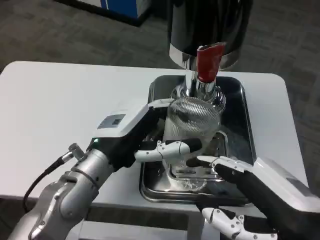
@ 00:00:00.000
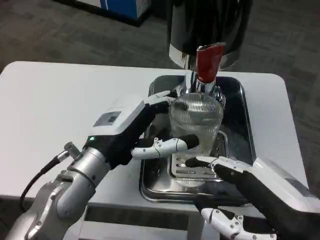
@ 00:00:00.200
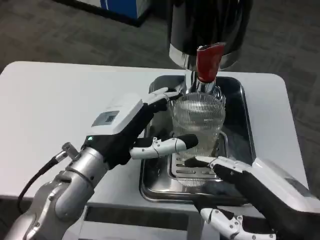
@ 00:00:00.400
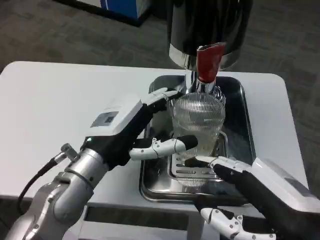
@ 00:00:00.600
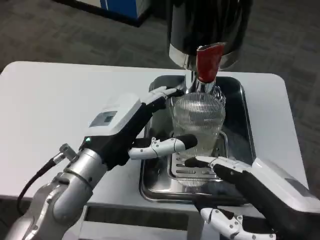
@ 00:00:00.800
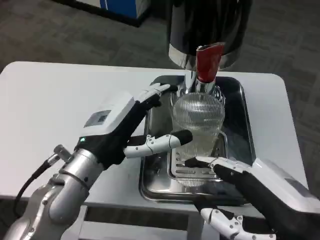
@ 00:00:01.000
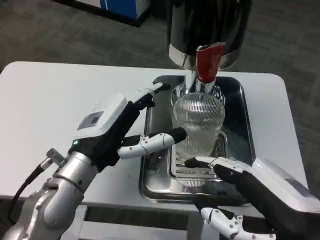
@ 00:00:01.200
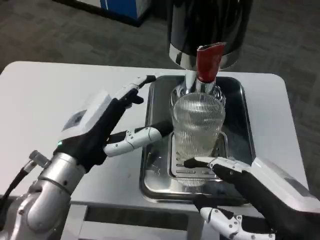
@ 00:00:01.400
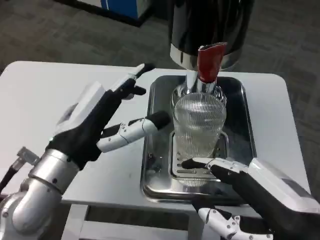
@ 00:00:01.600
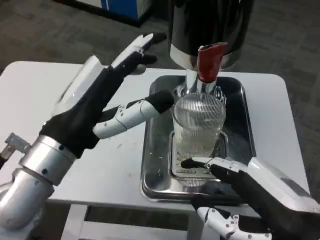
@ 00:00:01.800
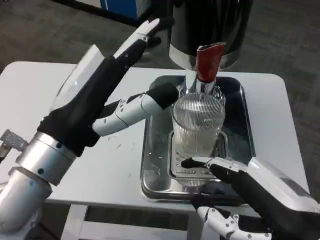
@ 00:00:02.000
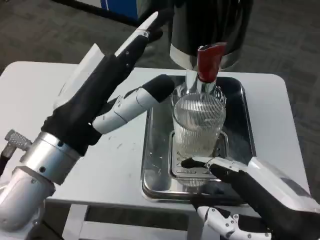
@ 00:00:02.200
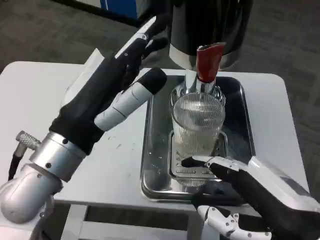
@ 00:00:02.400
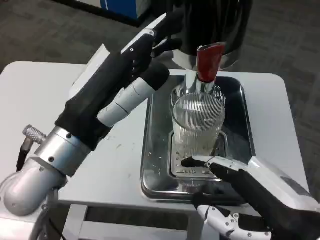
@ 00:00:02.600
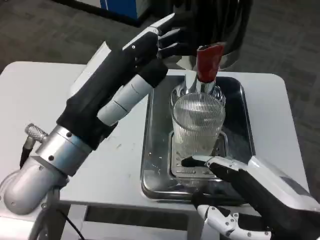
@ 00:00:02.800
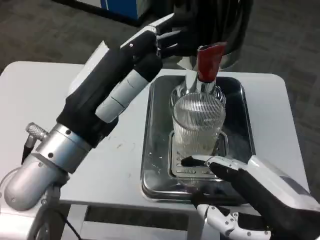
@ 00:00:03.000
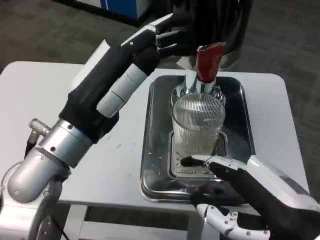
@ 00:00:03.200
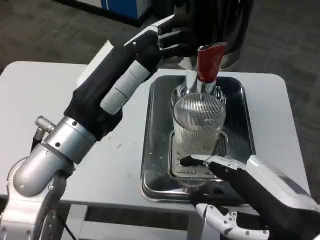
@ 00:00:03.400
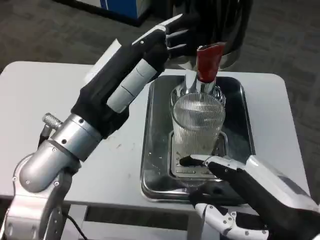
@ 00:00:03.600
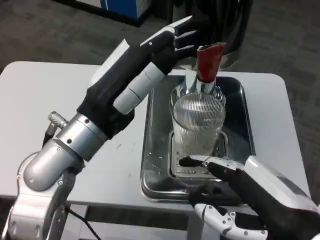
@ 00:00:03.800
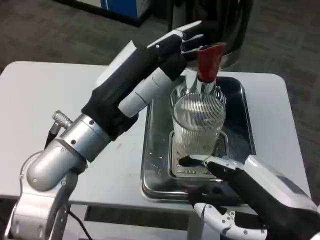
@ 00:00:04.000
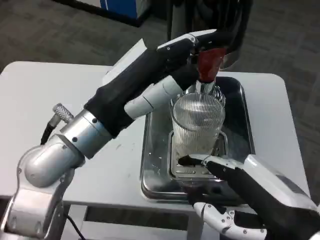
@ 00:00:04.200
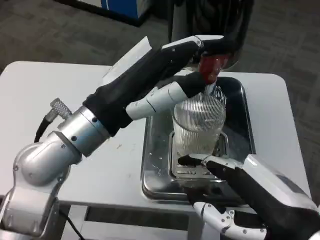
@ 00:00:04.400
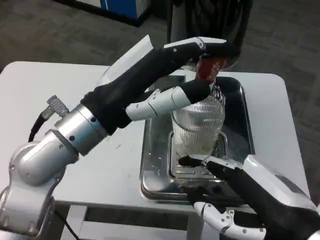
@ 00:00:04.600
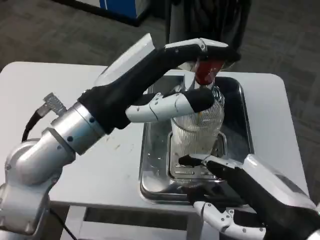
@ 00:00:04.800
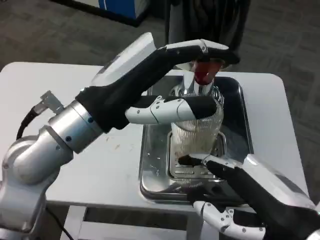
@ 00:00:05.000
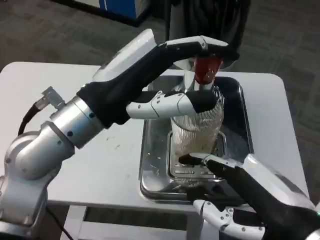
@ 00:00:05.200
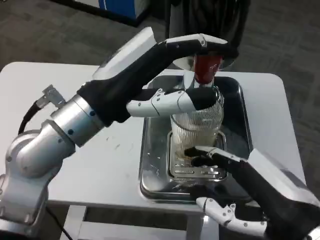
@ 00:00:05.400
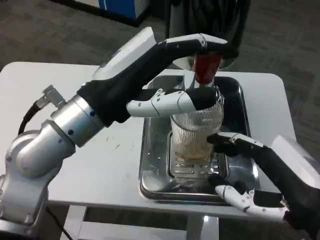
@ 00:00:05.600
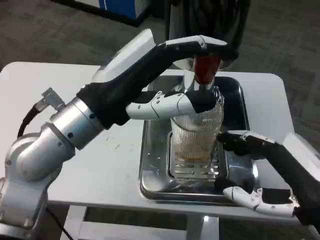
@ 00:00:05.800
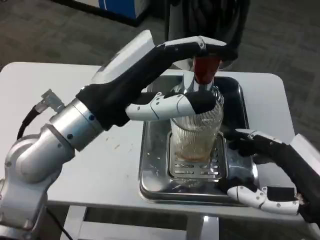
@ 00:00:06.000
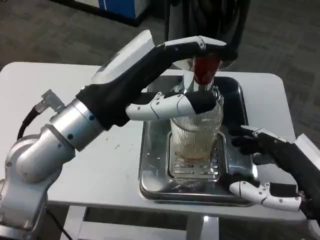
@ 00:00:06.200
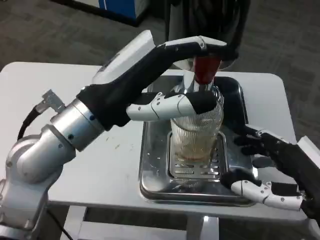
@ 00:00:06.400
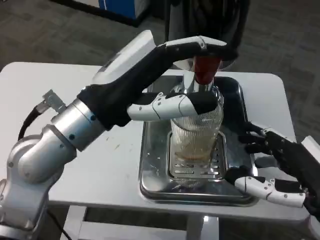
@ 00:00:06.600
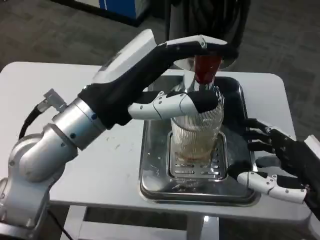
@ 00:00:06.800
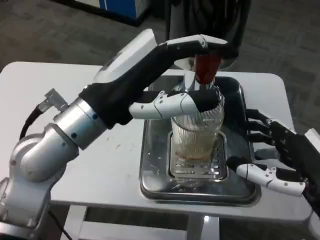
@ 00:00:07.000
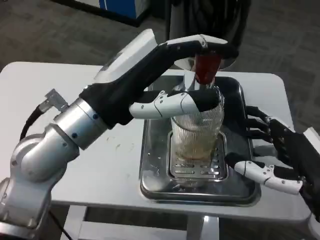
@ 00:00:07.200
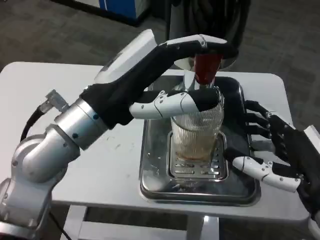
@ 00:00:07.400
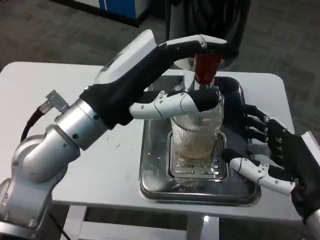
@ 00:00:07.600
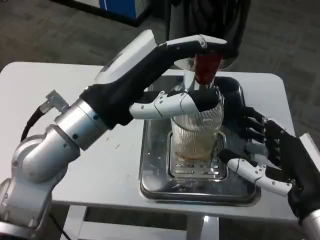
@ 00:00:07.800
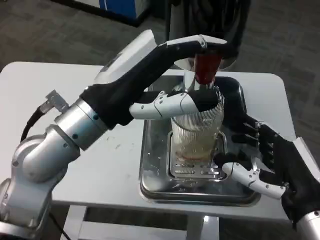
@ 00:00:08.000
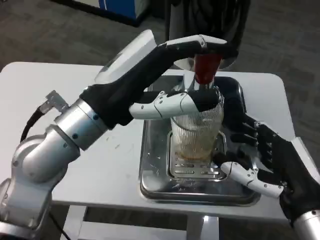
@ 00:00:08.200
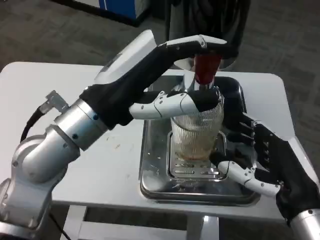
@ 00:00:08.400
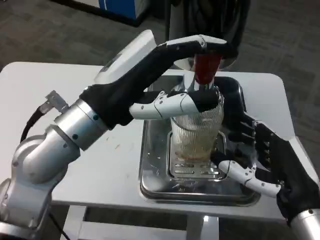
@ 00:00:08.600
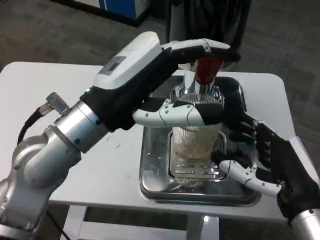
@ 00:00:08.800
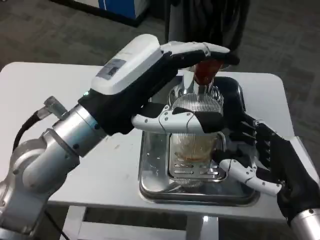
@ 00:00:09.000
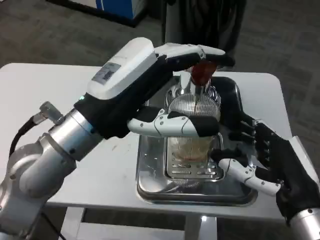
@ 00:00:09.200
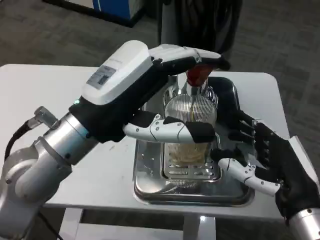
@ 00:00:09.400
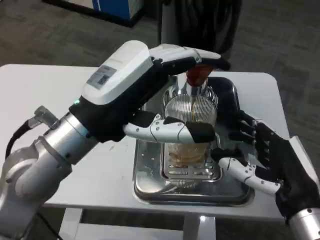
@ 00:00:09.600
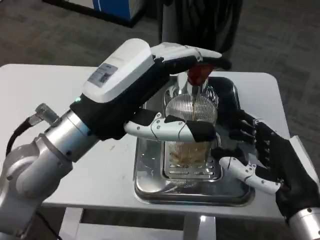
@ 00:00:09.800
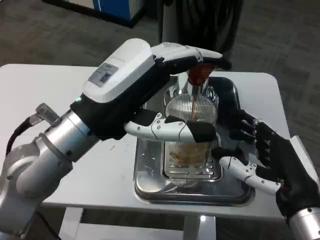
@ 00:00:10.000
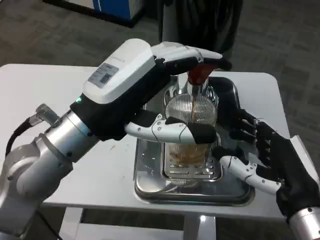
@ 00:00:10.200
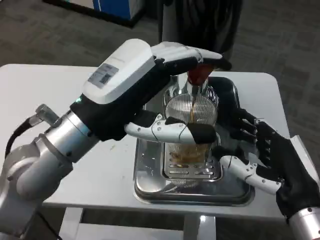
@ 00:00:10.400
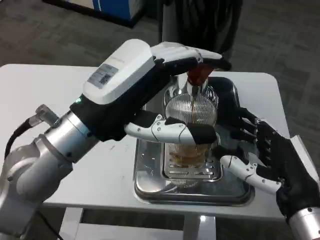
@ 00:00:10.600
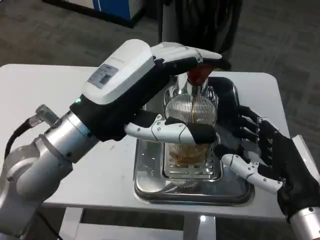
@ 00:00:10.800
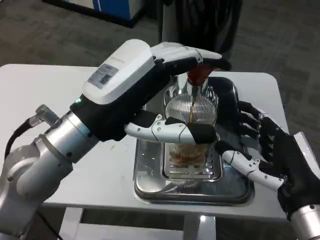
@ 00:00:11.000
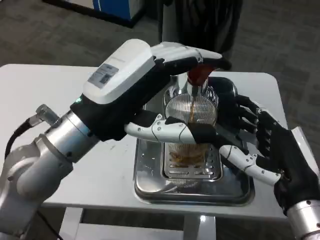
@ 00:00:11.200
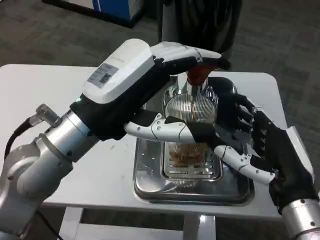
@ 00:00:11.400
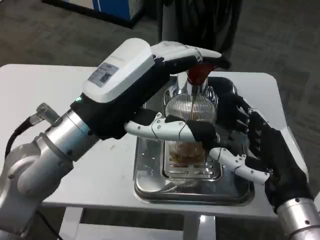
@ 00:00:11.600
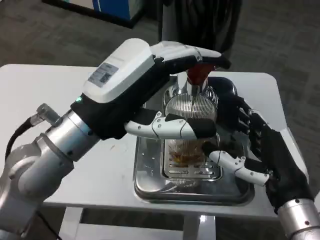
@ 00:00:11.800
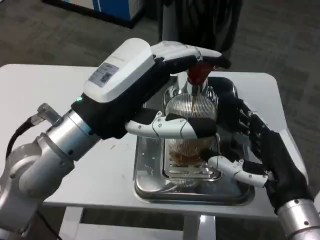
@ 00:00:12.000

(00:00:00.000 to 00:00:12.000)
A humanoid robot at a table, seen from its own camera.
Task of the whole recording: Grasp the cup under the faucet to collect the drink, then remove the cup.
00:00:00.000 - 00:00:01.600: The left hand moves approximately 5 cm.
00:00:06.000 - 00:00:07.600: The right hand shifts by about 5 cm.
00:00:10.400 - 00:00:12.000: There are only small adjustments of the hands.

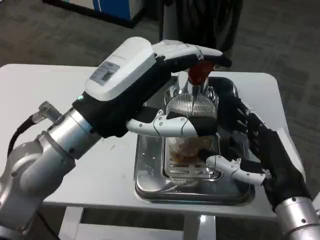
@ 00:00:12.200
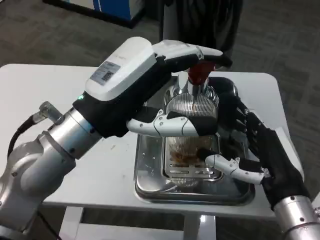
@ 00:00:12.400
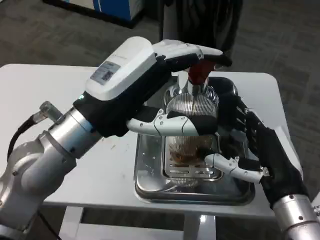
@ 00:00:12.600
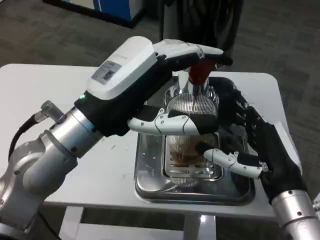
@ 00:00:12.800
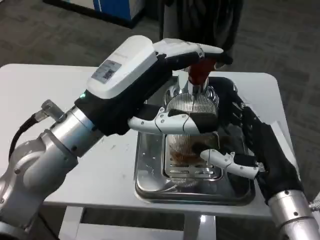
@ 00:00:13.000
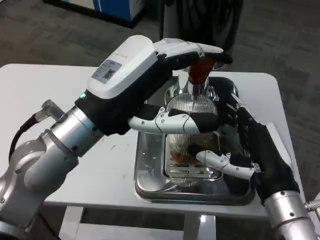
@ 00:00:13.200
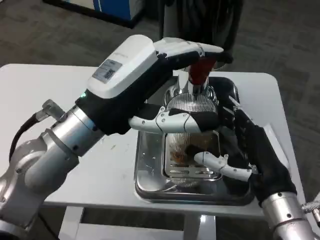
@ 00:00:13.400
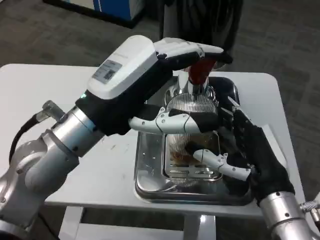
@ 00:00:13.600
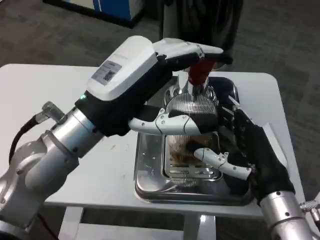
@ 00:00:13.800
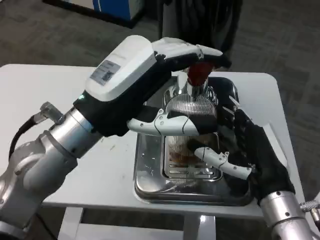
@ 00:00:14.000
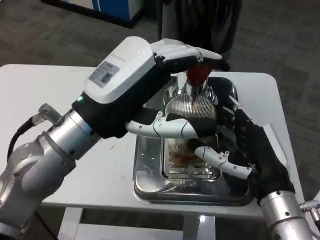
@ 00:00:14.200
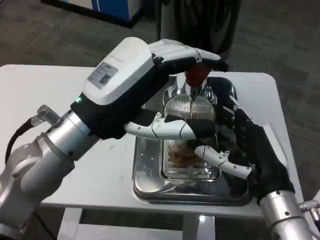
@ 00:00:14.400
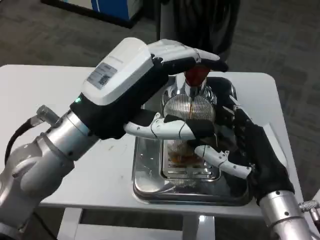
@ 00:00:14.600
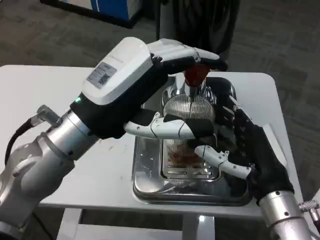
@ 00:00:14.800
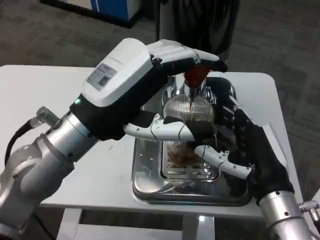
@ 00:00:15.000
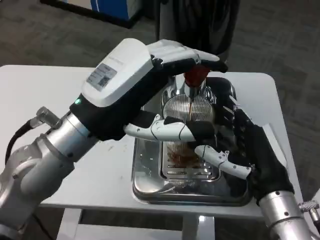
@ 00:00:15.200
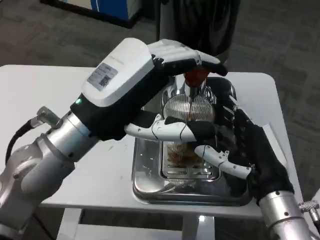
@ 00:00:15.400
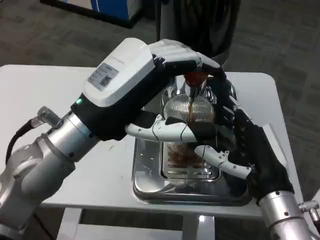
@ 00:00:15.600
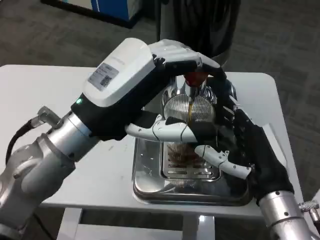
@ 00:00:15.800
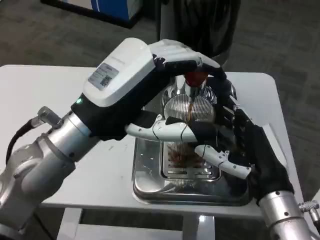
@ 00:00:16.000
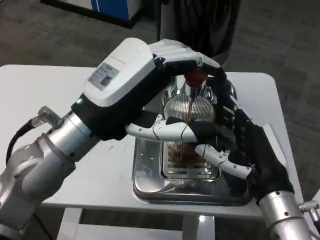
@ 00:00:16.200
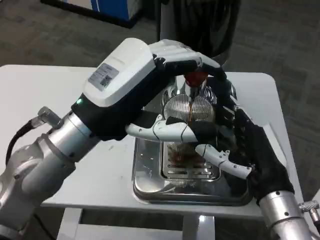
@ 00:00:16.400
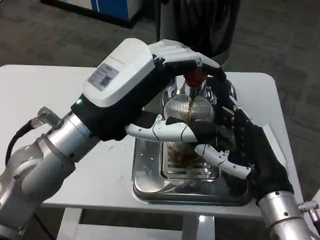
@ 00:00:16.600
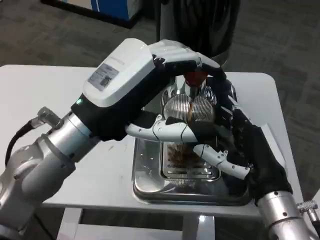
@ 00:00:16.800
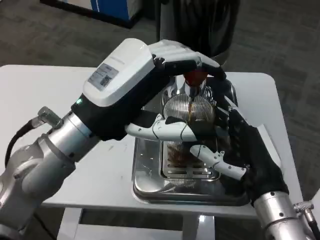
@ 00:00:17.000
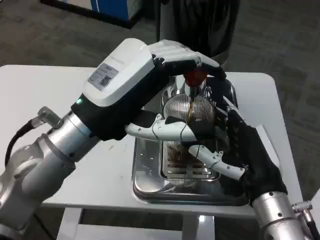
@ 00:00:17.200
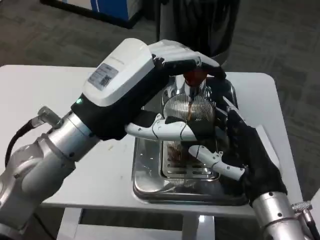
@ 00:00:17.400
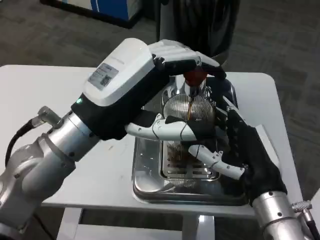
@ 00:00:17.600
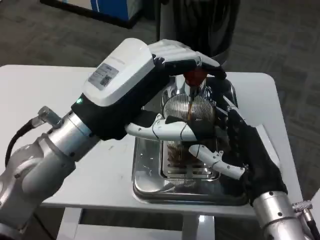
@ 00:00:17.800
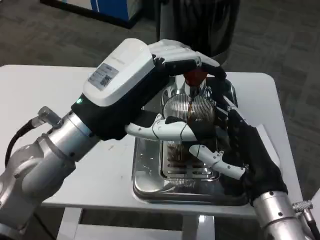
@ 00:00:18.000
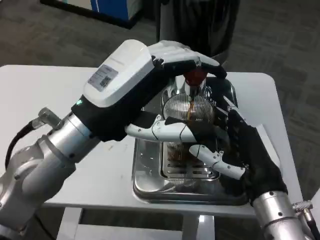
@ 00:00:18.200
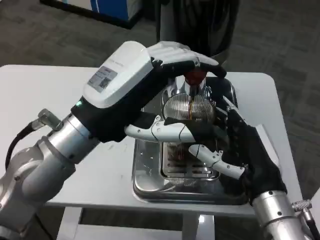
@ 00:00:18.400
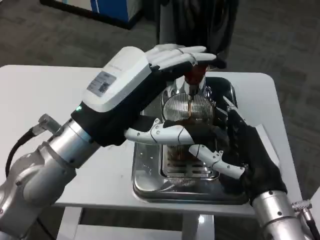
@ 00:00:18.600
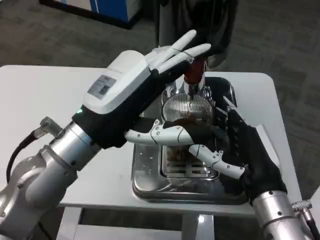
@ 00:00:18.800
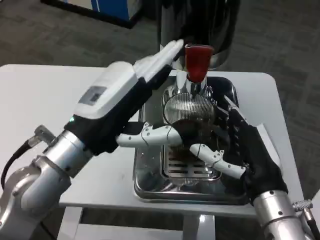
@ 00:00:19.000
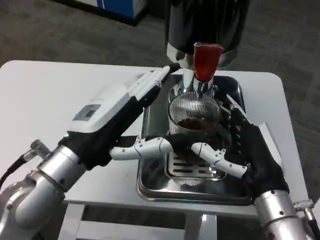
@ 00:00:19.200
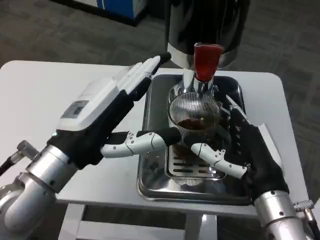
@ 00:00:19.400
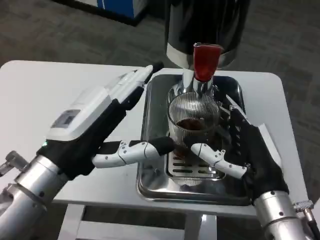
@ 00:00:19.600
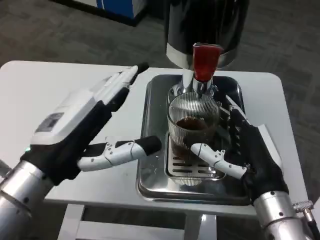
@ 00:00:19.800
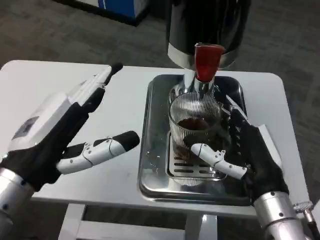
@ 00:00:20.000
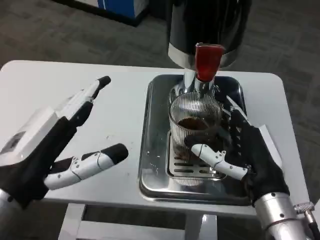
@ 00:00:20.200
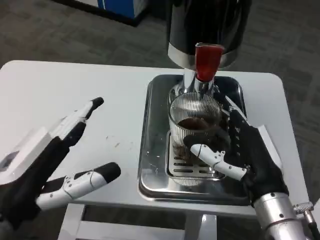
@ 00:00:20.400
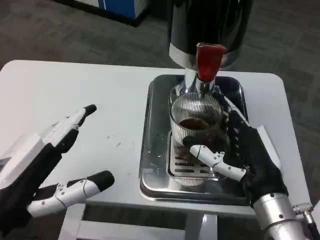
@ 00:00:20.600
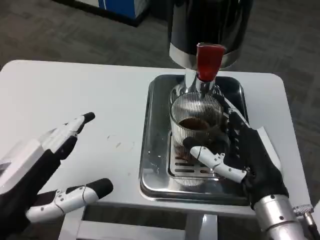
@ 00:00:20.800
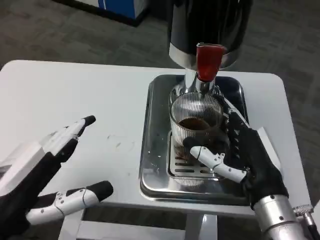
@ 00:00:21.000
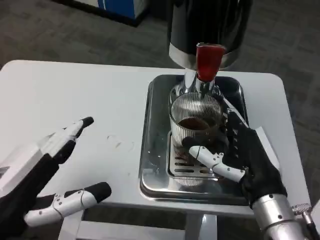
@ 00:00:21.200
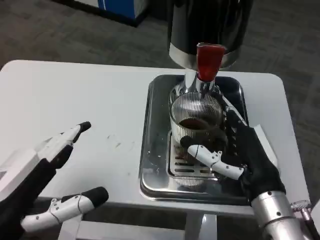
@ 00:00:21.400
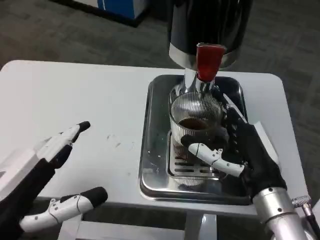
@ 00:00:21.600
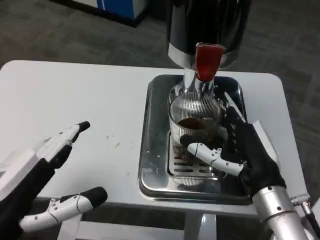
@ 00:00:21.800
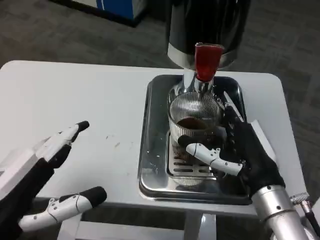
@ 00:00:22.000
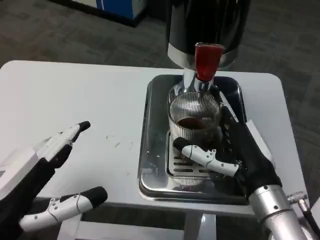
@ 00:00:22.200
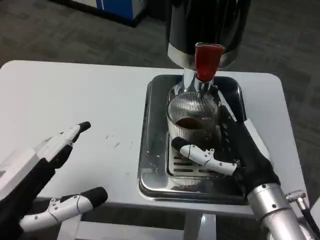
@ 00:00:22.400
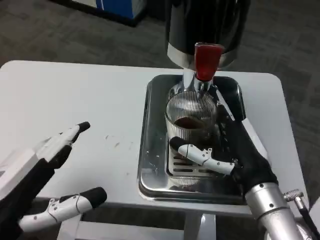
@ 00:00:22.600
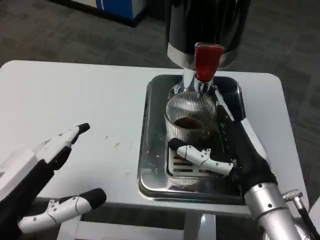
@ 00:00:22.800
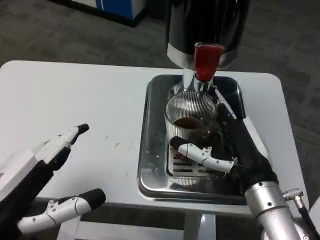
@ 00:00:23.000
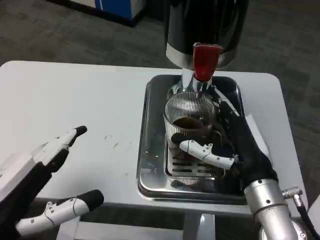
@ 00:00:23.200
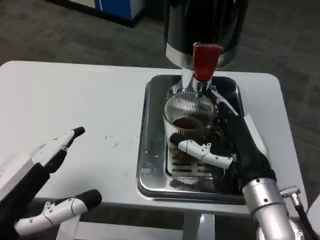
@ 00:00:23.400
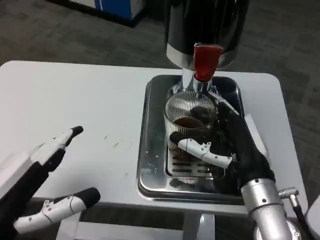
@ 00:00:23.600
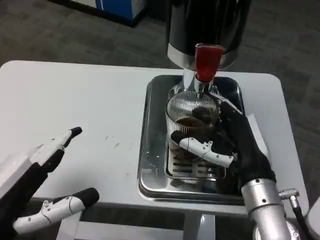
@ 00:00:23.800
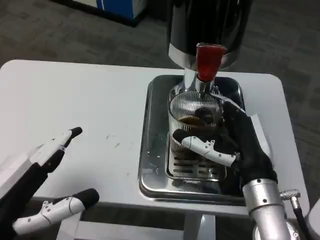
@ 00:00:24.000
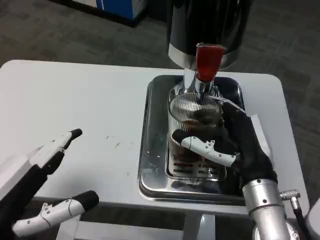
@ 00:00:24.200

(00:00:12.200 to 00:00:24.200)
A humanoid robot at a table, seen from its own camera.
Task of the whole recording: Grasp the cup under the faucet to collect the drink, then remove the cup.
00:00:12.200 - 00:00:13.800: There are only small adjustments of the hands.
00:00:13.800 - 00:00:18.200: Both hands stay put.
00:00:18.200 - 00:00:19.800: The left hand moves backward, some 5 cm.
00:00:19.800 - 00:00:21.200: The left hand heads backward, covering approximately 5 cm.
00:00:21.200 - 00:00:24.200: The hands move only a little.
